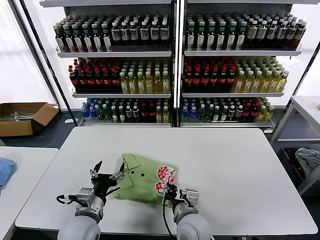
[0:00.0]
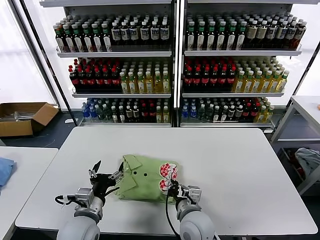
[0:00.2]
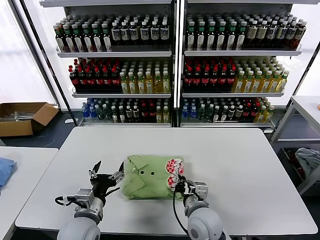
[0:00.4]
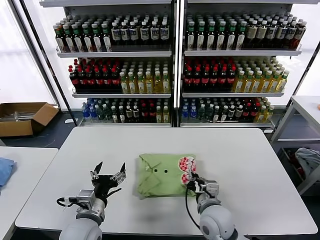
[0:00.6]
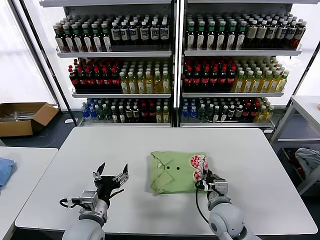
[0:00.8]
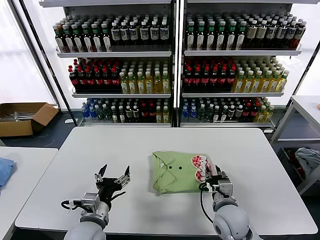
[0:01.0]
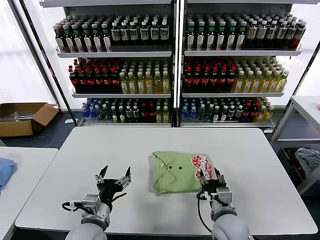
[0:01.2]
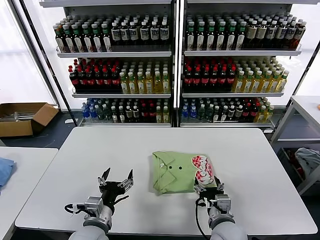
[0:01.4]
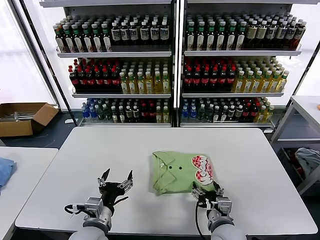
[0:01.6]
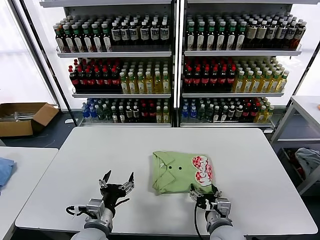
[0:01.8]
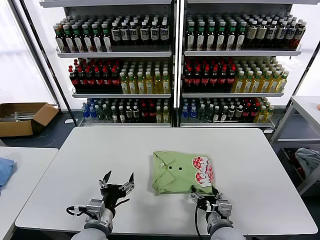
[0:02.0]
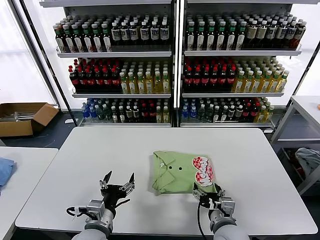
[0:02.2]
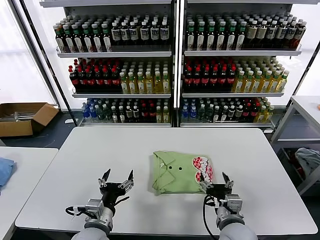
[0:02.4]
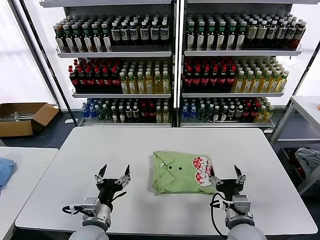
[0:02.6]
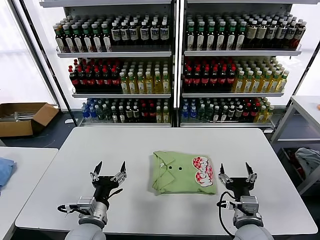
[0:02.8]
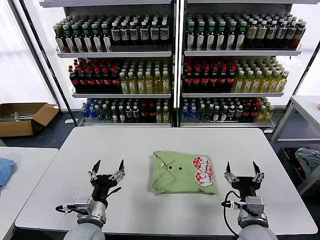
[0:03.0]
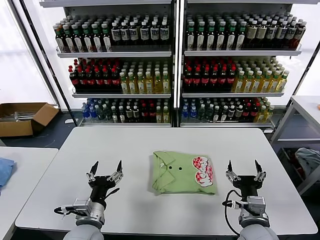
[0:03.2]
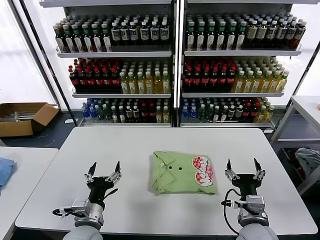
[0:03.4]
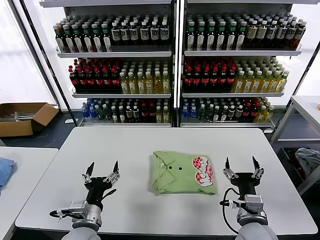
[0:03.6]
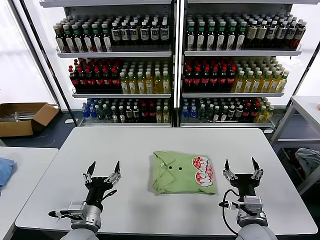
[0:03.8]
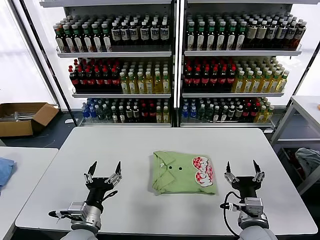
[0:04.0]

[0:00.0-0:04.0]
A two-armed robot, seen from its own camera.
Task of the whole recording: fold and organize the clothes.
Step, 0.0 to 2.4 s: Drag the clothes to the center of the table.
0.0 to 1.4 s: The right gripper is displaced to the right by roughly 10 cm, and opens its fingers.
1.4 to 2.6 s: There are only small adjustments of the grippers.
2.6 to 4.0 s: The grippers make only small movements.

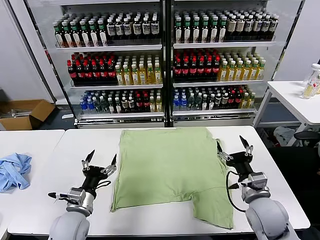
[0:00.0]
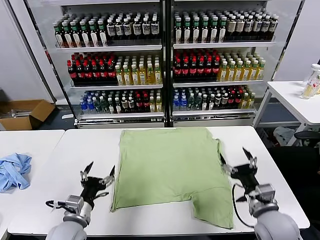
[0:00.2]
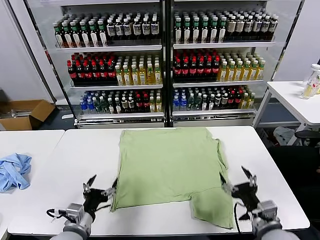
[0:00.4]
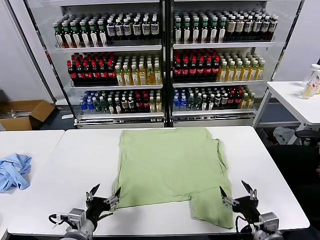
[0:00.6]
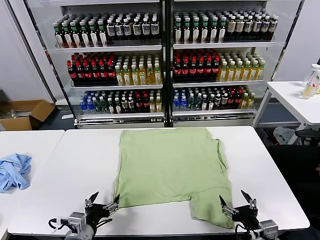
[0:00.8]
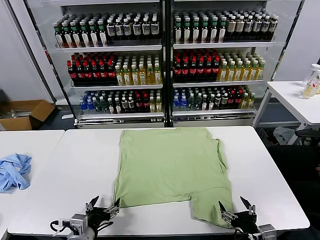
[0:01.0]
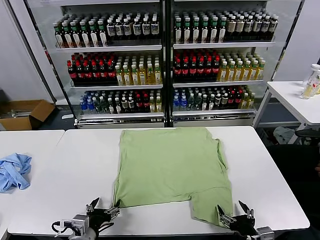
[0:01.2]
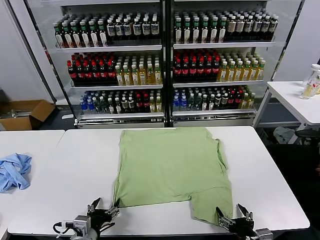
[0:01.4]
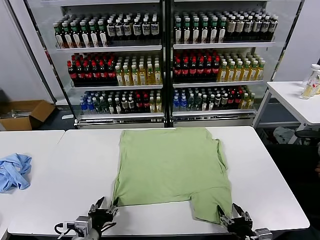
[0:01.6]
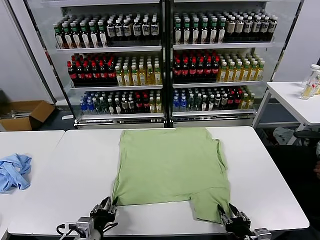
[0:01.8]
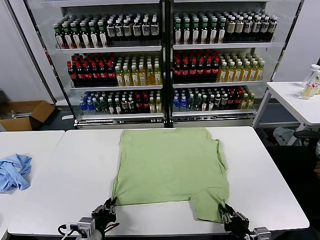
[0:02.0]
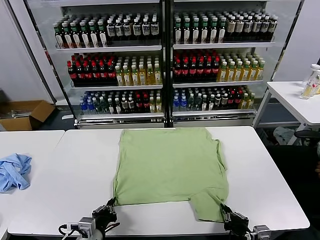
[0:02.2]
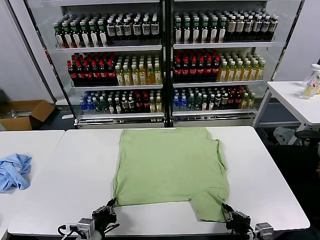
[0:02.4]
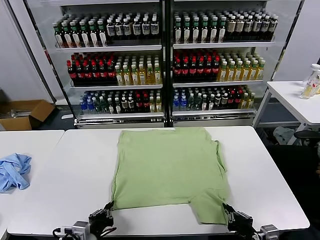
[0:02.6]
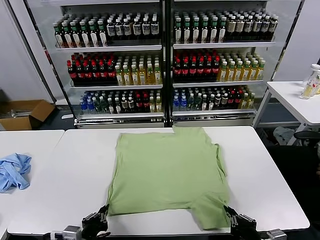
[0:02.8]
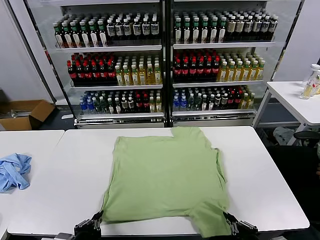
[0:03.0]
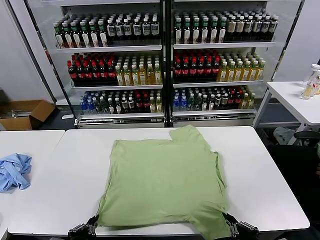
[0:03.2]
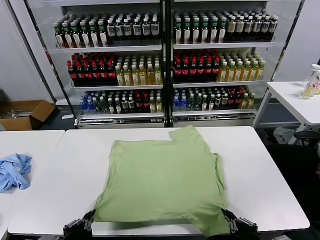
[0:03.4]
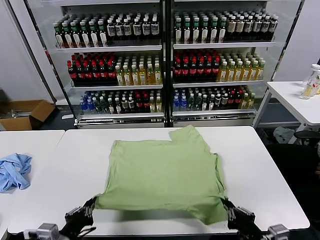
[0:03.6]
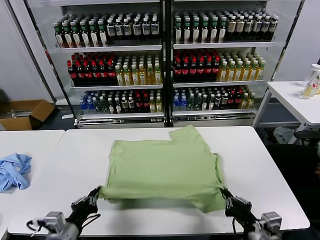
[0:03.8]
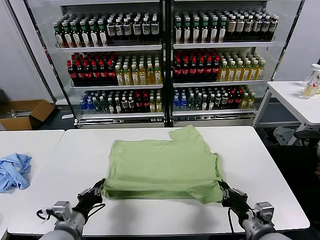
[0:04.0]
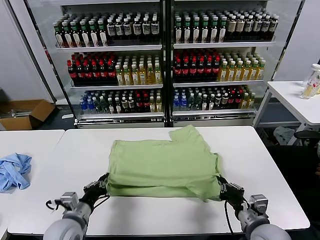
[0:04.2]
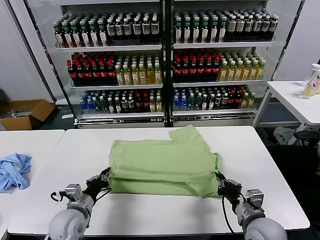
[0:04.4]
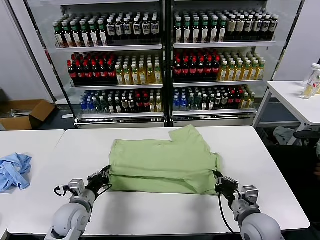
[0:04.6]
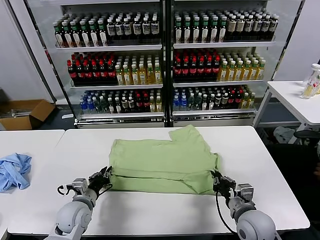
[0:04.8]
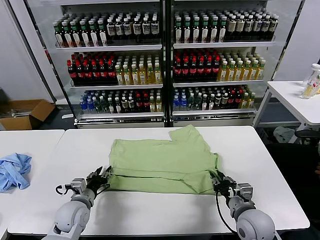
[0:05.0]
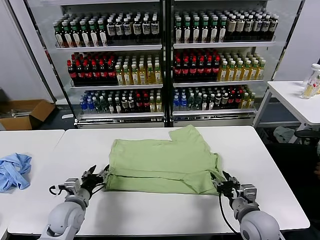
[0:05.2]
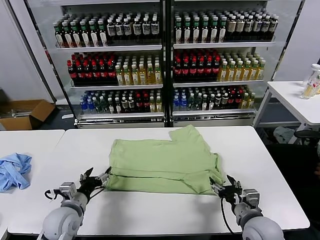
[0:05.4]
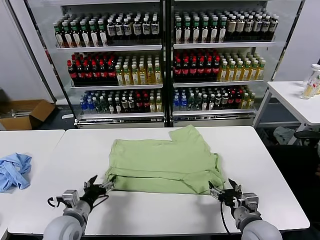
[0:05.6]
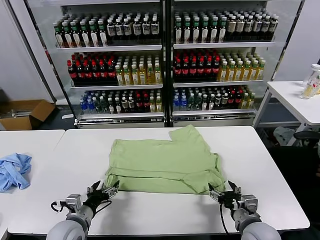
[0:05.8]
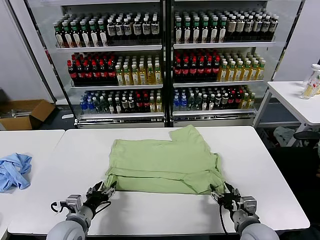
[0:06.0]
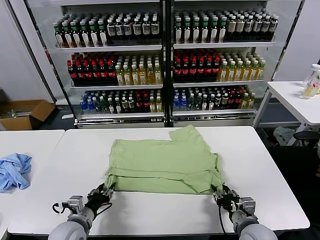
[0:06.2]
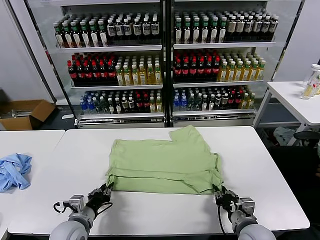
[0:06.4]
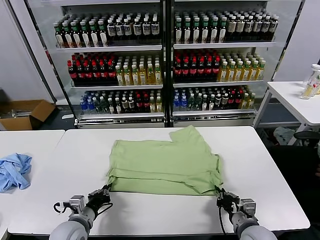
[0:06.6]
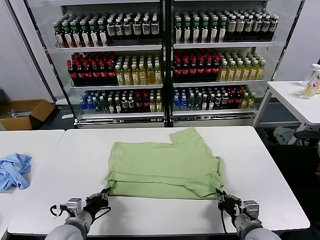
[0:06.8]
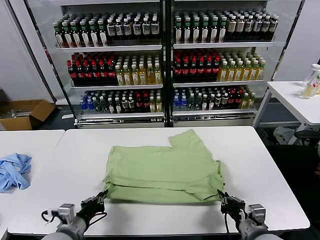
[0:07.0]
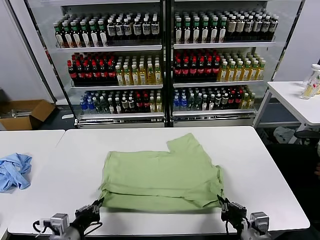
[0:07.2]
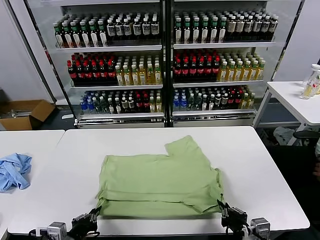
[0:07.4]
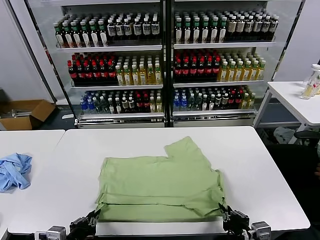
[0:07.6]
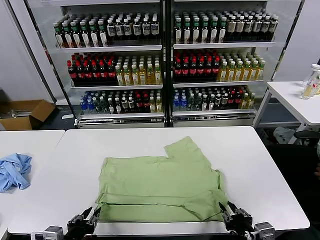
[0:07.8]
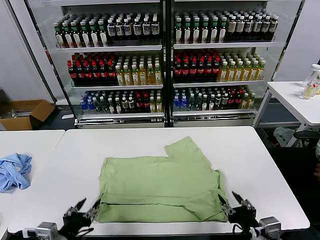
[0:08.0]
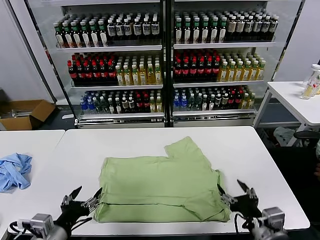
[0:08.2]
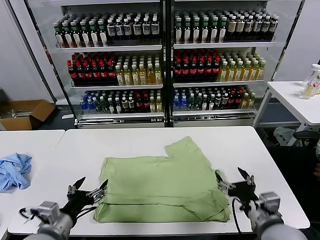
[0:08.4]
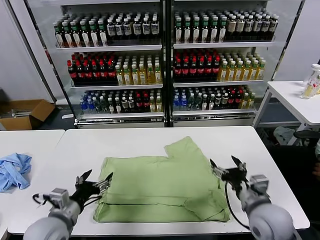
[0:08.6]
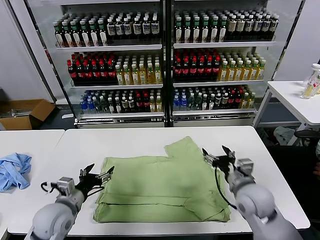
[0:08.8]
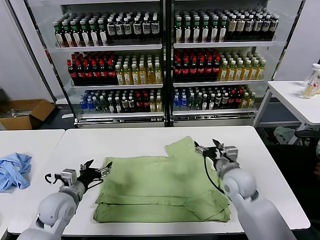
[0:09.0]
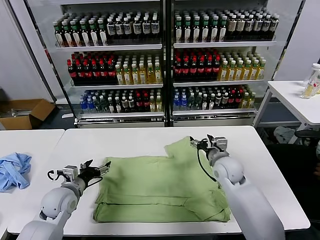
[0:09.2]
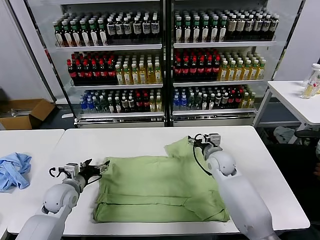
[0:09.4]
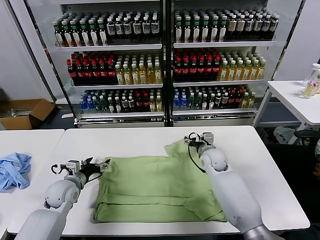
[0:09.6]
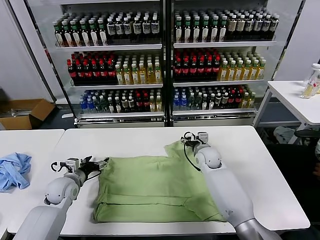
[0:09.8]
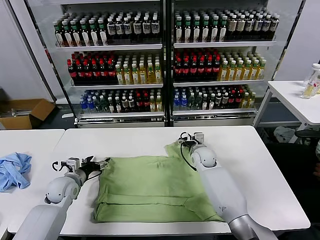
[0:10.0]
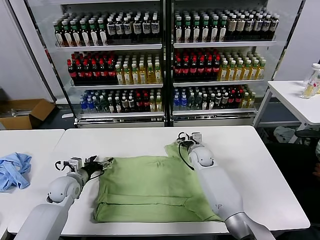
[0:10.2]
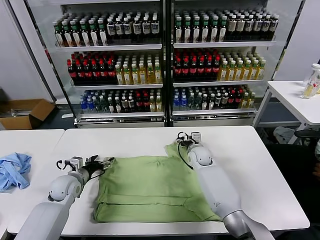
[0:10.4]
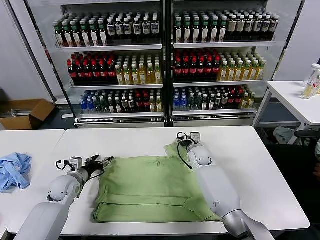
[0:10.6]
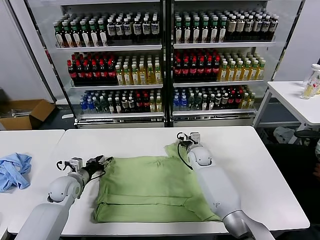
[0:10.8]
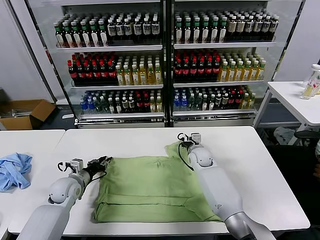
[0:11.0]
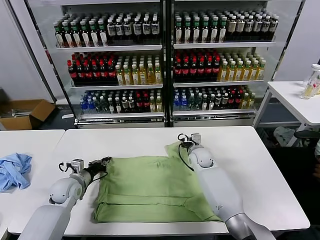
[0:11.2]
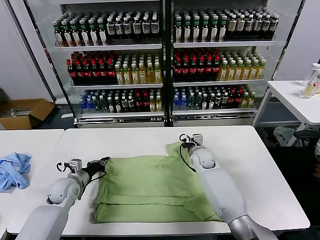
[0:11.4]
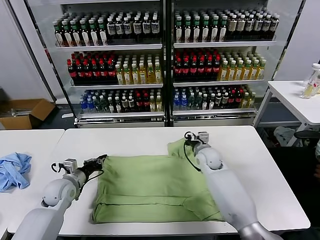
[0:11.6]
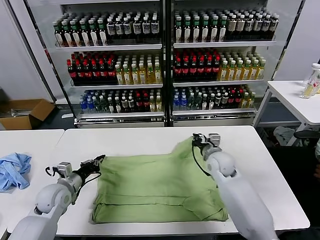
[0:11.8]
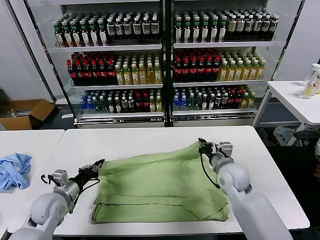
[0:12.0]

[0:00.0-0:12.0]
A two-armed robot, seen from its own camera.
Task of the whole recording: fold and organize the clothes.
Step, 0.0 to 3.0 s: use both grippers simultaneously to clamp the lower edge of the clothing fabric.
Step, 3.2 to 5.2 s: use both grippers to drag the lower edge of the fabric forward and fold it over the upper edge.
Step, 5.4 to 7.8 s: Drag the clothes downward with both gripper.
Step, 8.0 to 11.2 s: use both grippers simultaneously to clamp the upper edge of the clothing fabric.
1.6 to 3.0 s: The left gripper heads backward, covering some 5 cm, and closes its fingers; the right gripper is displaced upward by about 10 cm, and closes.
3.0 to 4.4 s: Both grippers travel together forward, some 15 cm.
4.4 to 6.0 s: The right gripper opens up. The left gripper opens up.
6.0 to 7.6 s: The left gripper is displaced backward by about 10 cm, and closes up; the right gripper moves backward and upward, about 10 cm, and closes up.
7.6 to 9.0 s: The two grippers go roughly 20 cm forward. The right gripper opens up, while the left gripper opens up.
9.0 to 10.4 s: The right gripper travels forward, downward and to the left by roughly 20 cm; the left gripper is displaced forward by approximately 10 cm.
10.4 to 12.0 s: The right gripper goes some 20 cm backward, to the right and upward, and closes its fingers. Meanwhile the left gripper travels backward by about 10 cm, and closes up.

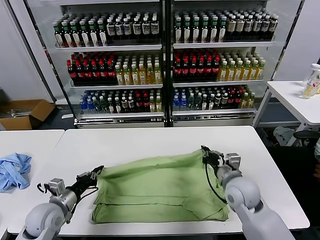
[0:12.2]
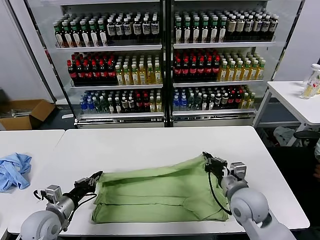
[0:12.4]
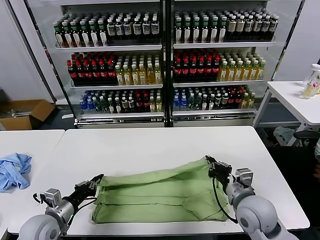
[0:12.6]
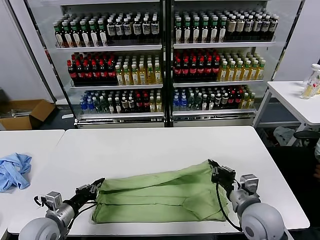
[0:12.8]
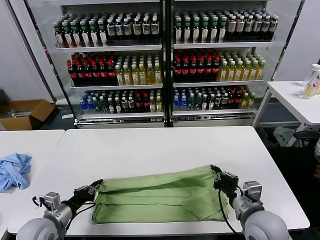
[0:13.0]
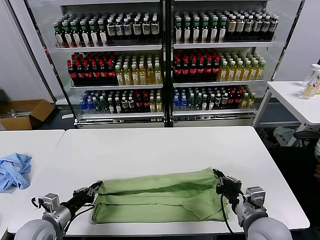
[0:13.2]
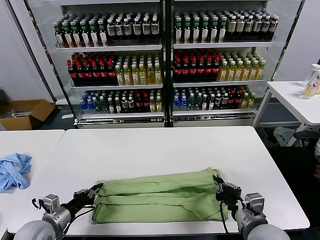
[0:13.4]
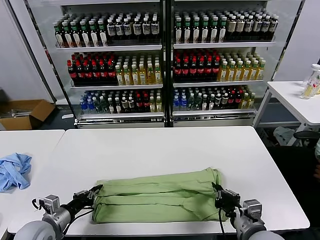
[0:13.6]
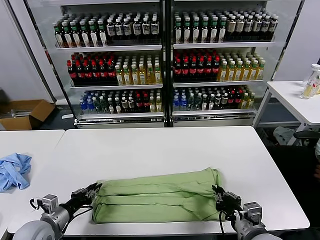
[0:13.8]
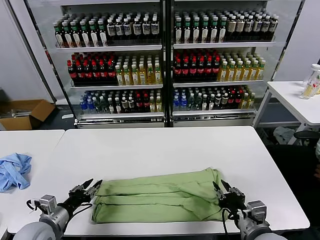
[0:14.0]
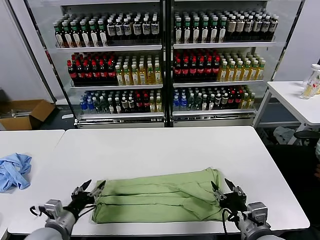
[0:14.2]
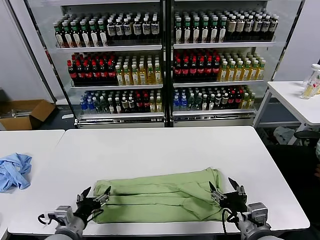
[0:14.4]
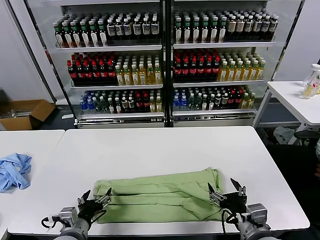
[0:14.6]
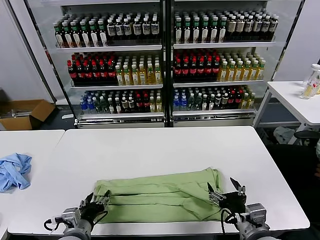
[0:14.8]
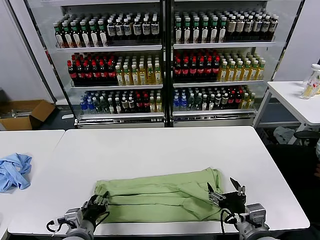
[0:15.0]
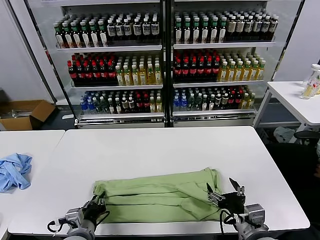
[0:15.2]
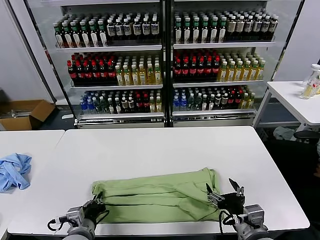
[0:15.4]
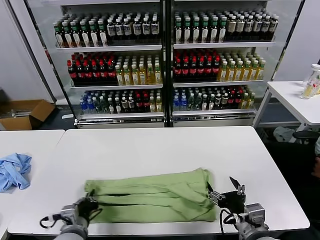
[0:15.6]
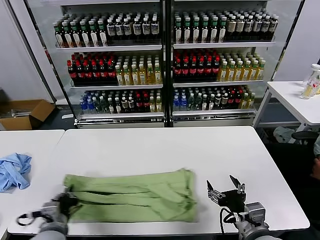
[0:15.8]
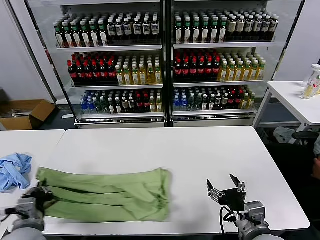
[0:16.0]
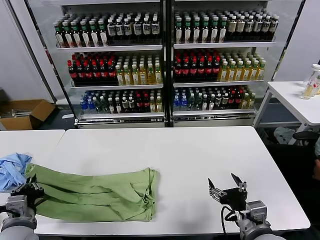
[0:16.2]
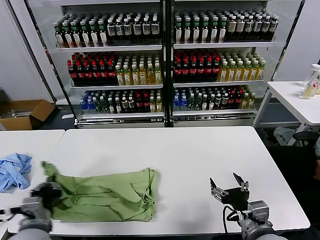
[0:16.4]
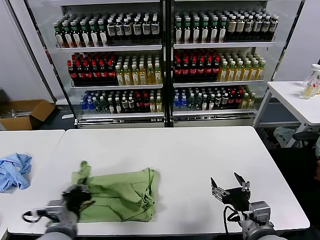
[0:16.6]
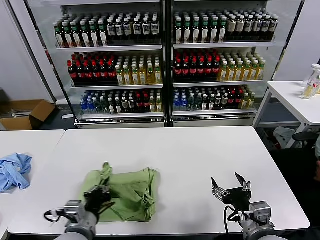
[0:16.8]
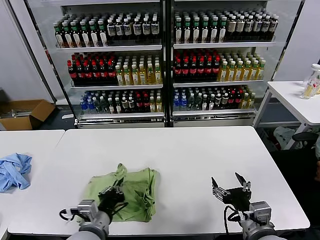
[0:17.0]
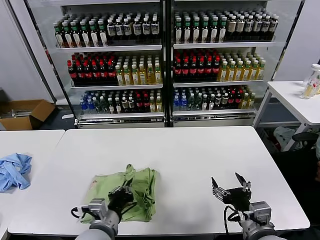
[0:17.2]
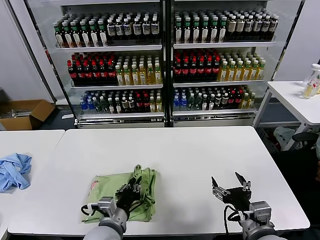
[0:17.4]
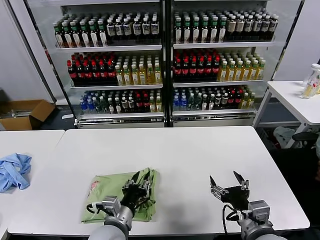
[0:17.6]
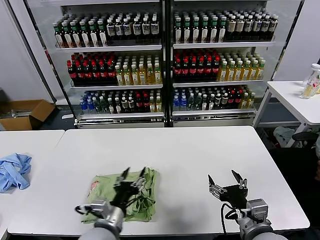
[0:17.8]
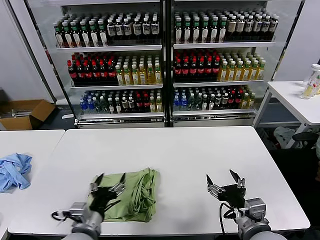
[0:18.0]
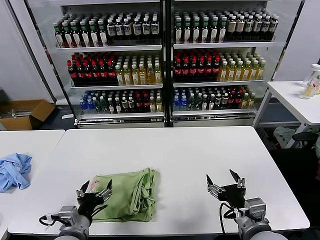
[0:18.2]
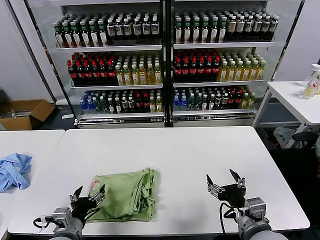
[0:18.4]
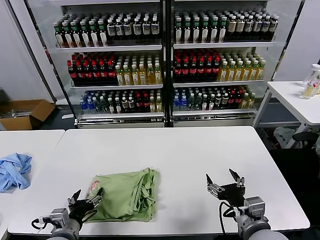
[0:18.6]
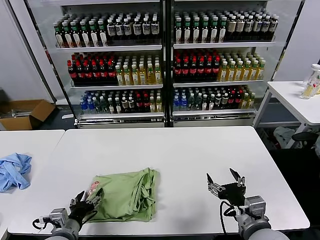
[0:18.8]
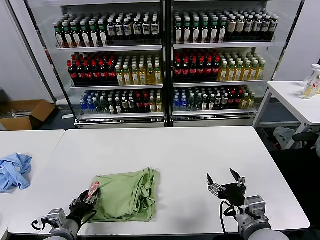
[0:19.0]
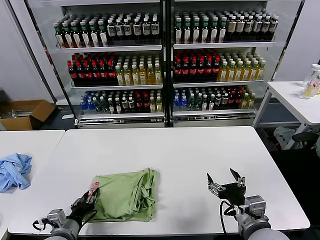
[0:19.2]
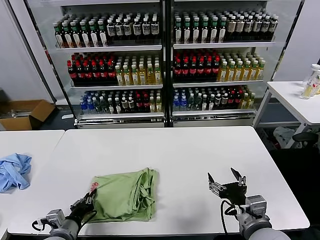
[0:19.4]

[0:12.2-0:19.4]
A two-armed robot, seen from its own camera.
Task of the whole recording: fold and organize the clothes.
Step, 12.2 to 14.0 s: use both grippers to drag the upper edge of the fabric backward and fold it over the lower edge.
Step, 14.2 to 15.2 s: use the left gripper to clamp the left edge of the fabric.
Step, 15.6 to 17.6 s: use the left gripper to drag the left edge of the fabric to the left and folds it over the right edge.
12.2 to 13.6 s: The left gripper shifts by roughly 5 cm. Meanwhile the right gripper goes about 15 cm backward.
13.6 to 15.0 s: The right gripper opens up; the left gripper goes roughly 10 cm to the right, and opens up.
15.0 to 16.6 s: The left gripper heads upward, covering some 10 cm, moves roughly 10 cm to the left and comes back, and closes.
16.6 to 18.0 s: The left gripper goes about 5 cm to the right, and opens up.
18.0 to 19.4 s: The left gripper travels to the left and downward by approximately 15 cm, and closes its fingers.
